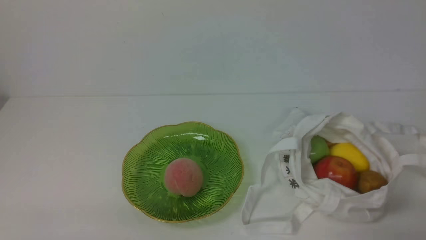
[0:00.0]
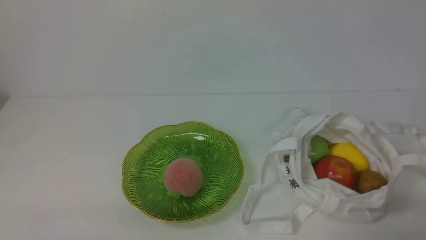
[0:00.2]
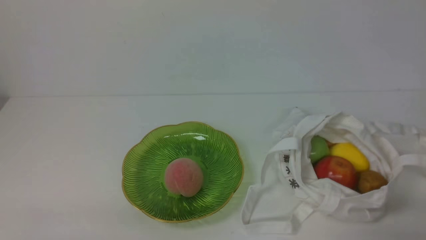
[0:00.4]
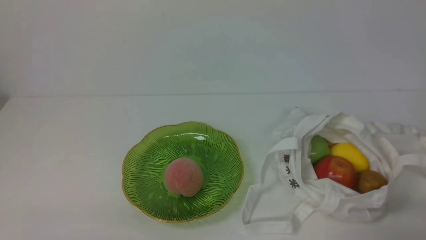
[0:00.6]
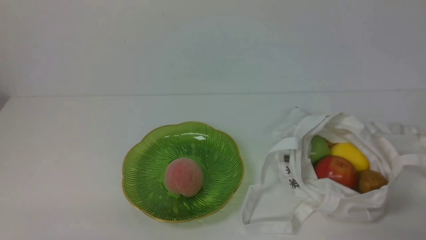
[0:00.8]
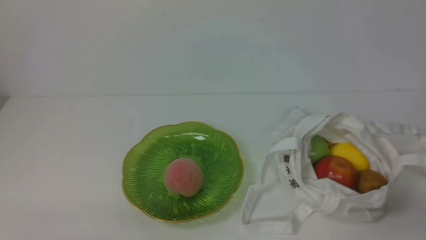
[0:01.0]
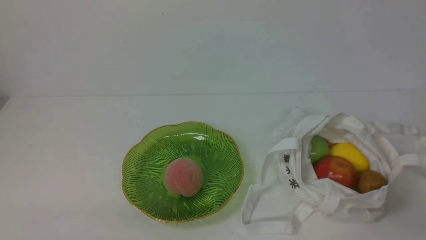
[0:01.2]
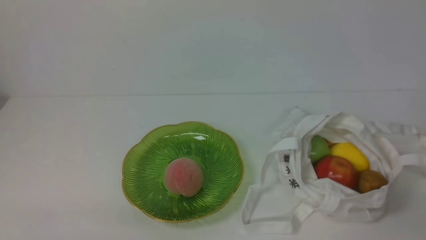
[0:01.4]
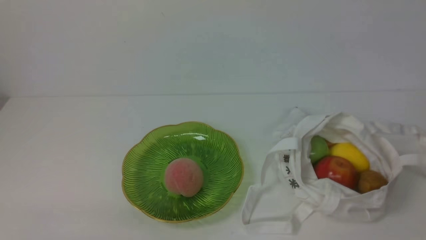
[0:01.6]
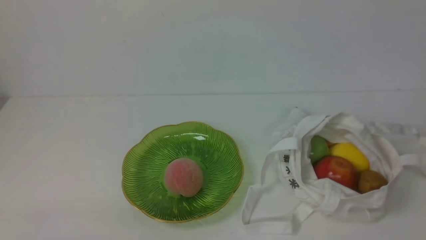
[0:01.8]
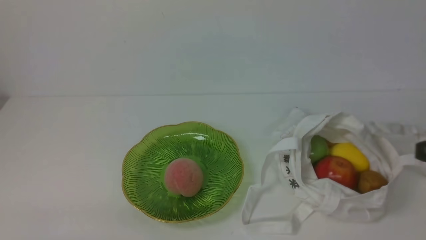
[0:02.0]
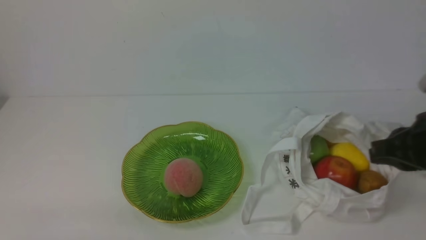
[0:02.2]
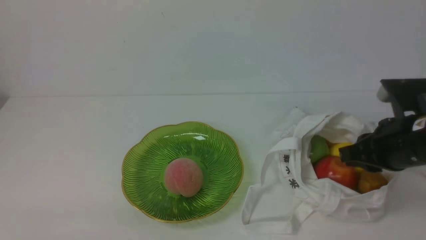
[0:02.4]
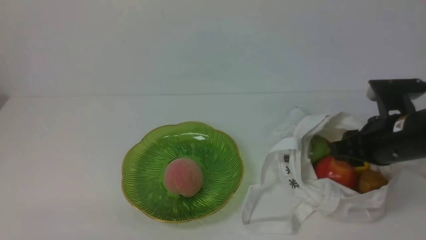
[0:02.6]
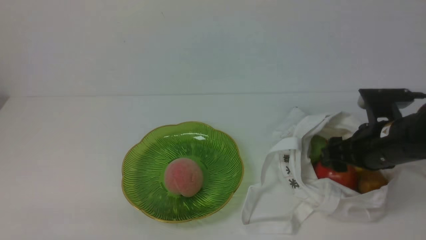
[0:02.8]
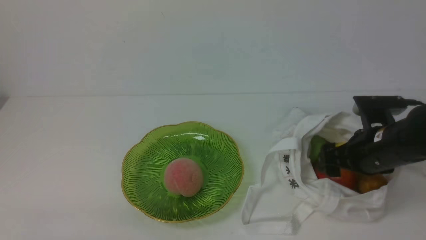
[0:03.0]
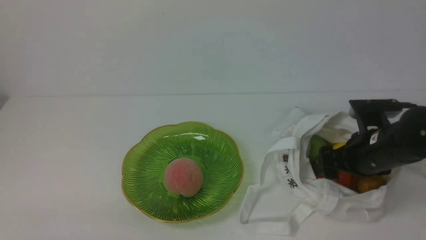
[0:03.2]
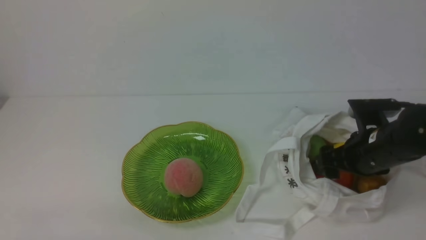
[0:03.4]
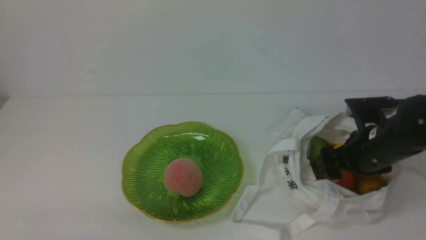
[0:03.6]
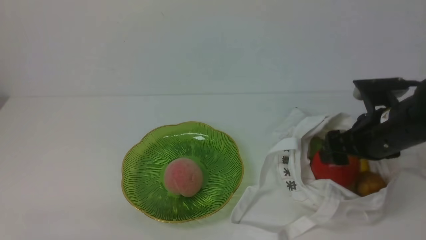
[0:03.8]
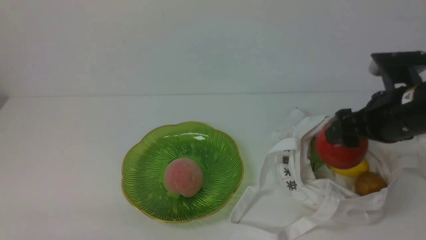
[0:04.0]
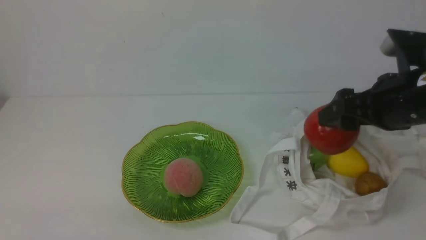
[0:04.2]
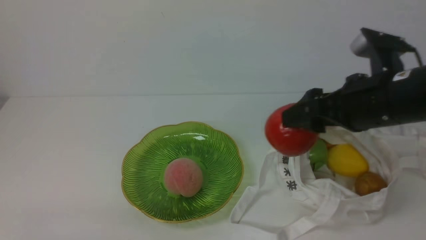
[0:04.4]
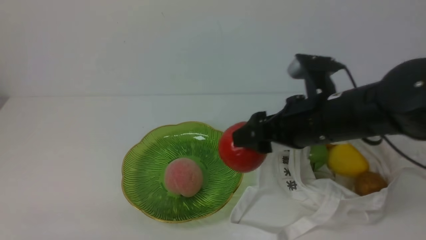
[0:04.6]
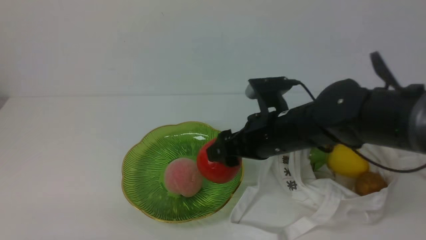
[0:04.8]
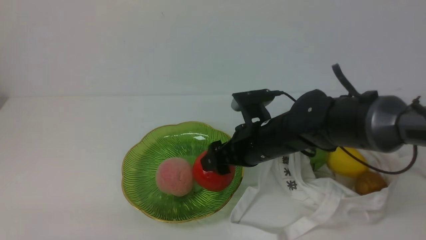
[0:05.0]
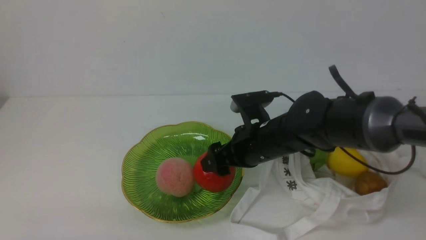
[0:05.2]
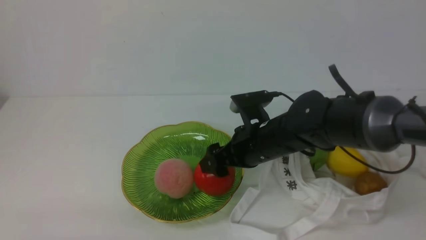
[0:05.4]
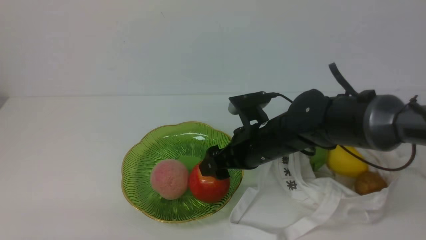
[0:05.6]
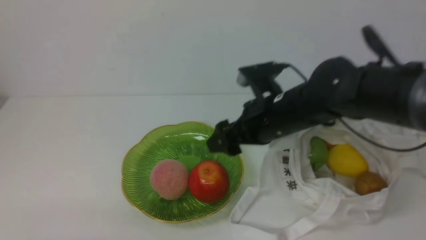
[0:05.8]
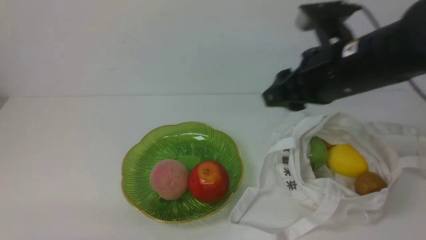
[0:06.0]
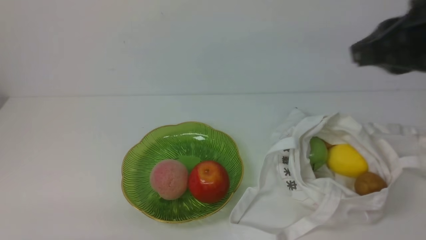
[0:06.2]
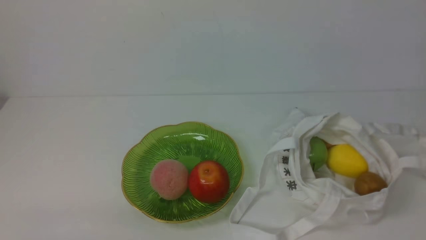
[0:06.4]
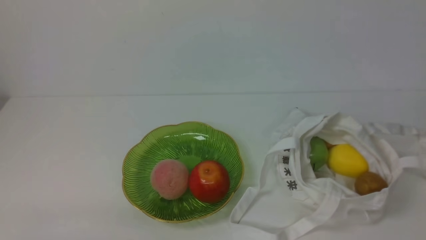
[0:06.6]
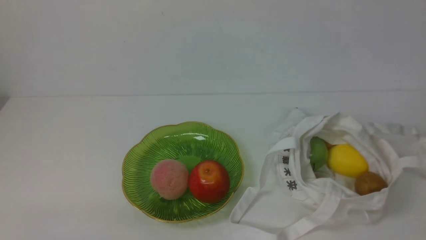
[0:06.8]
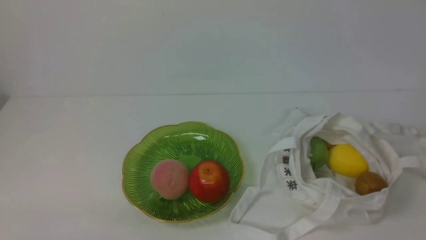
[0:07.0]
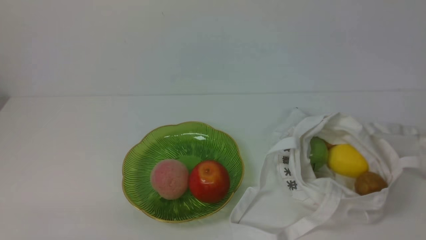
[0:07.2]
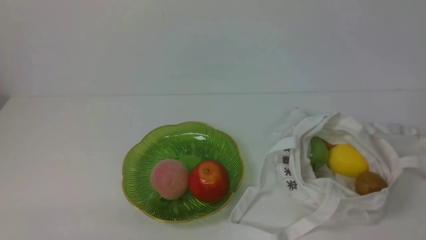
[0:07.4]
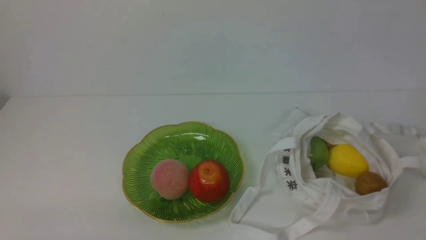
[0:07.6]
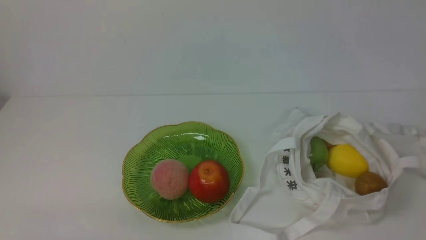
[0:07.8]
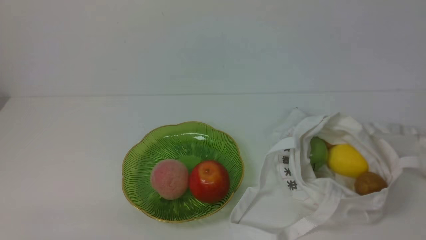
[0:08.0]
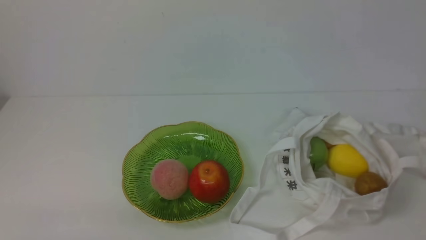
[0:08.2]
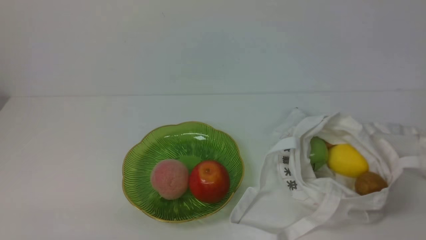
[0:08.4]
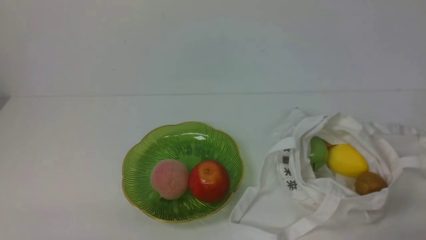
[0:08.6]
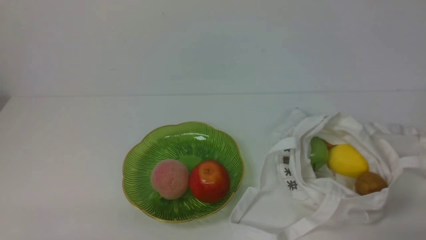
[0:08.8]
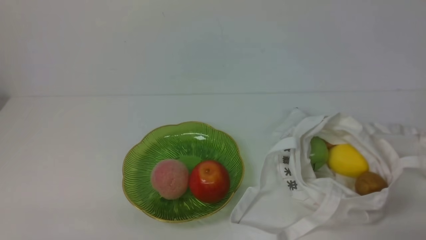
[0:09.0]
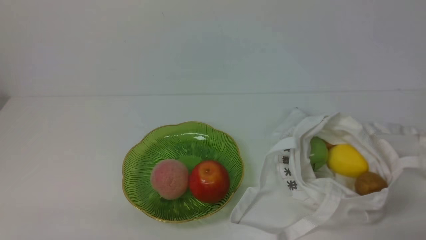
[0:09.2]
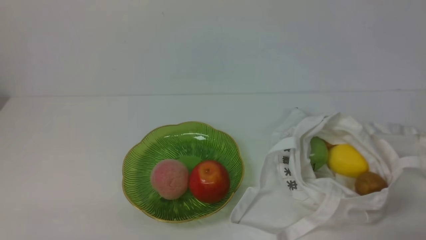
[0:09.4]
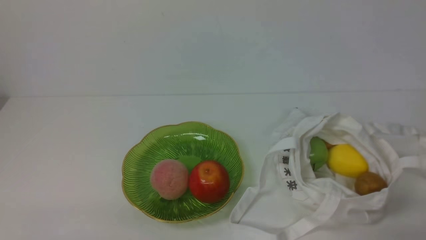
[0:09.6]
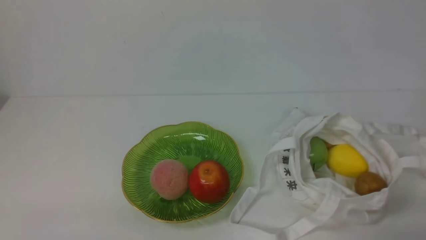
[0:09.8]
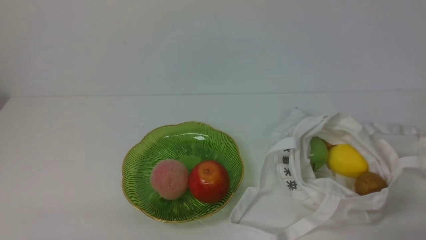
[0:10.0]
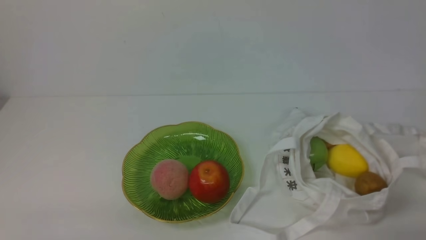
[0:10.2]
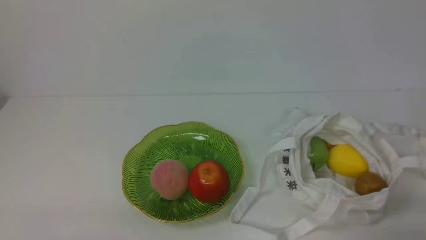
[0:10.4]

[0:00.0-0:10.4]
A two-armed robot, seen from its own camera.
Step, 0:00.0 to 0:03.8: use the right arm to grab an apple from the bag.
Step, 0:04.0 to 0:05.6: use the right arm to put the apple into the empty plate on the left.
0:01.4 to 0:03.0: The right gripper moves forward, about 25 cm, and opens.
0:03.0 to 0:04.4: The right gripper moves upward and to the left, about 10 cm.
0:04.4 to 0:06.0: The right gripper is displaced upward by approximately 5 cm, and closes its fingers.
0:06.0 to 0:07.4: The right gripper goes some 25 cm backward and to the right, and closes.
0:09.0 to 0:10.4: Both grippers stay put.
